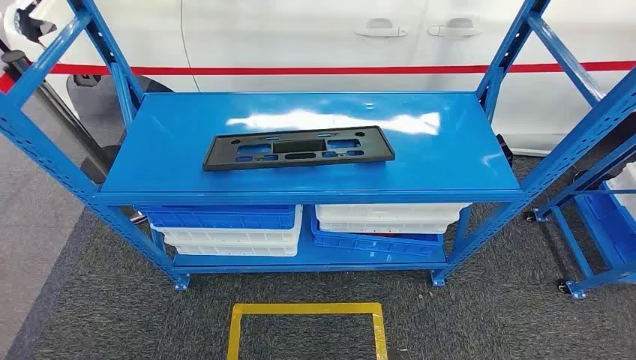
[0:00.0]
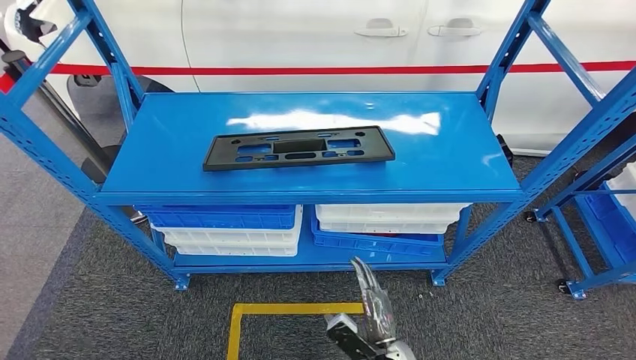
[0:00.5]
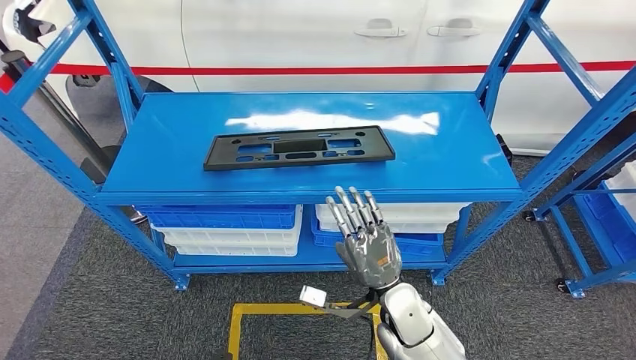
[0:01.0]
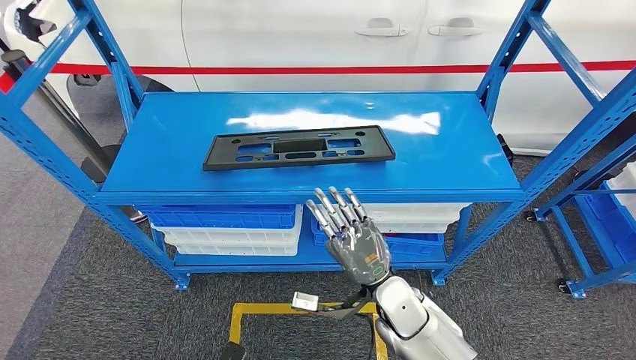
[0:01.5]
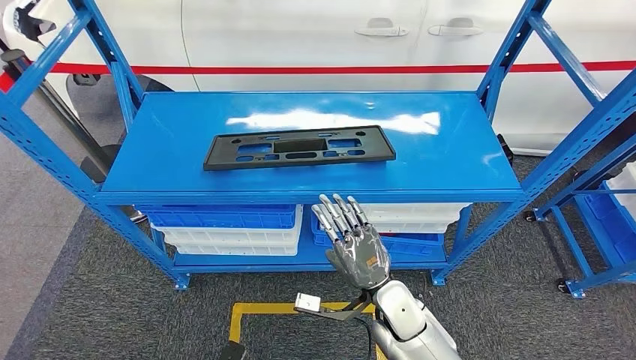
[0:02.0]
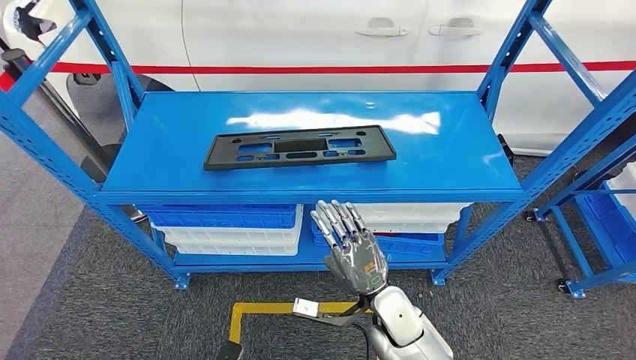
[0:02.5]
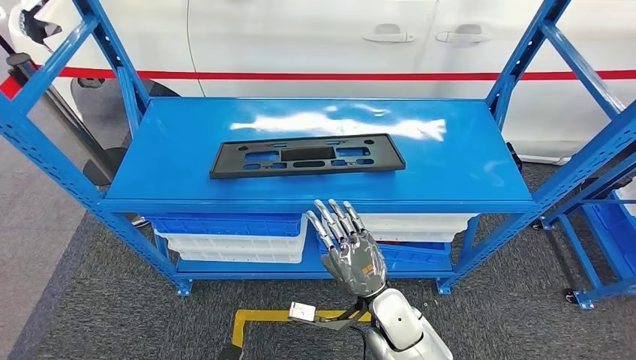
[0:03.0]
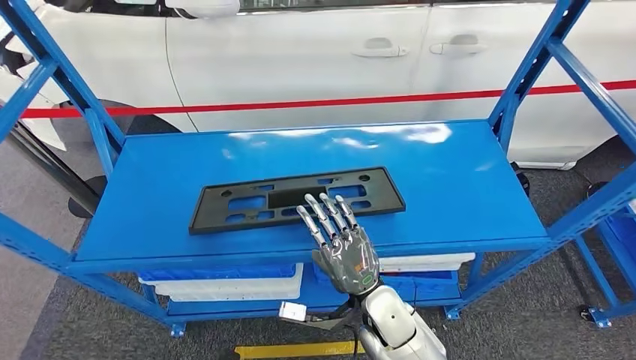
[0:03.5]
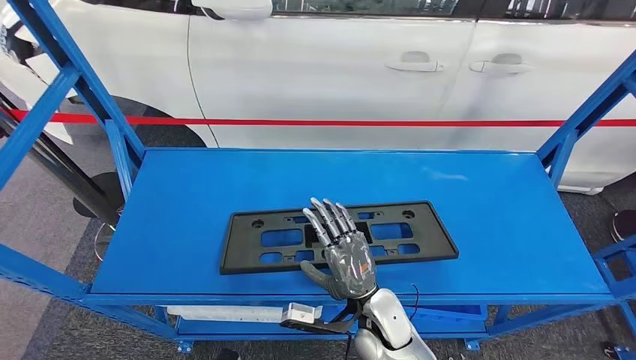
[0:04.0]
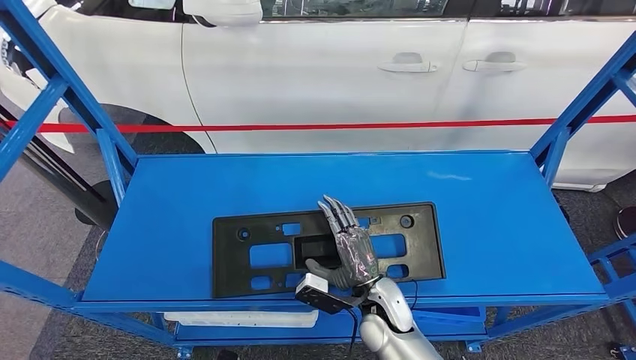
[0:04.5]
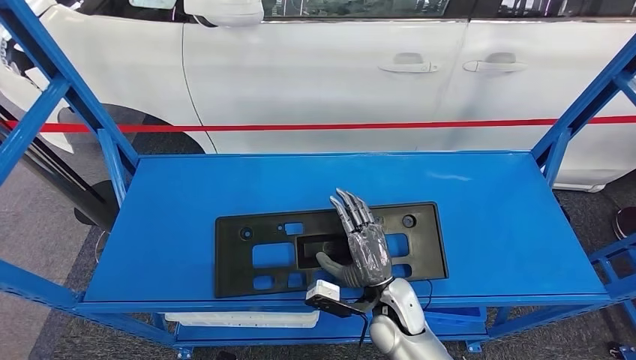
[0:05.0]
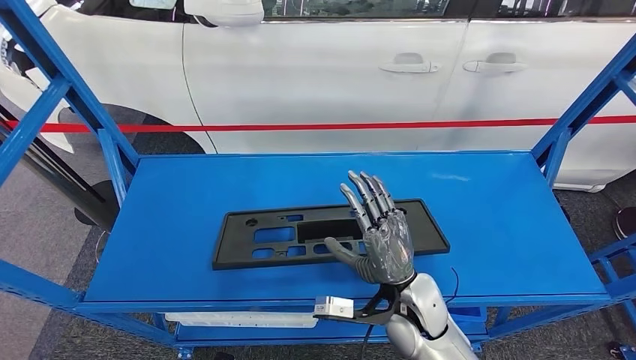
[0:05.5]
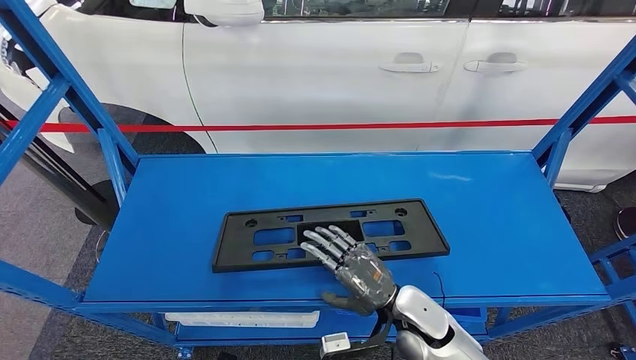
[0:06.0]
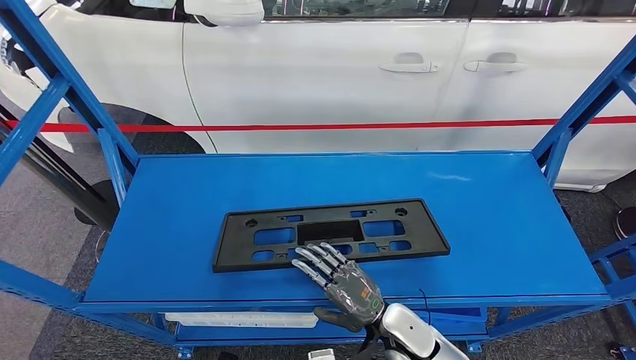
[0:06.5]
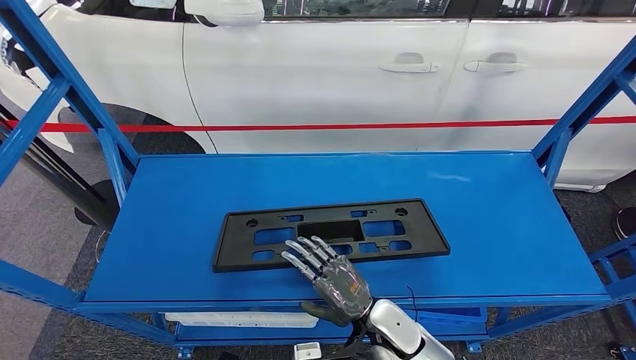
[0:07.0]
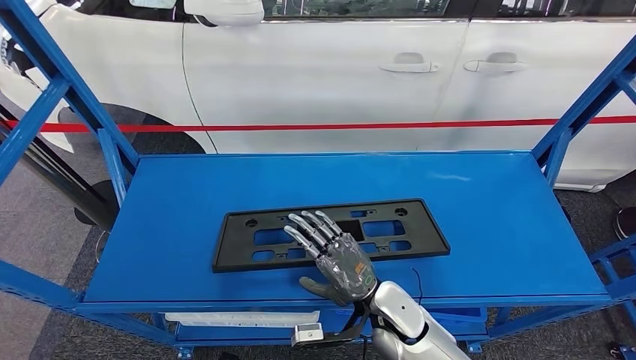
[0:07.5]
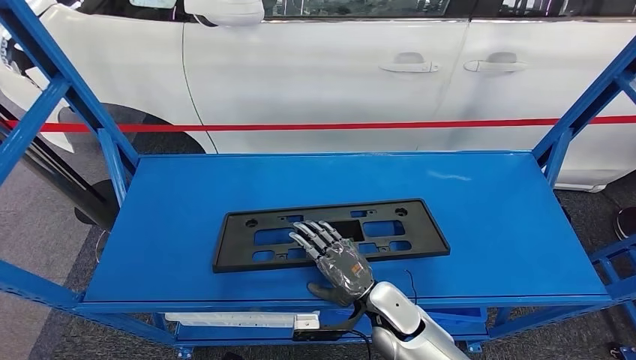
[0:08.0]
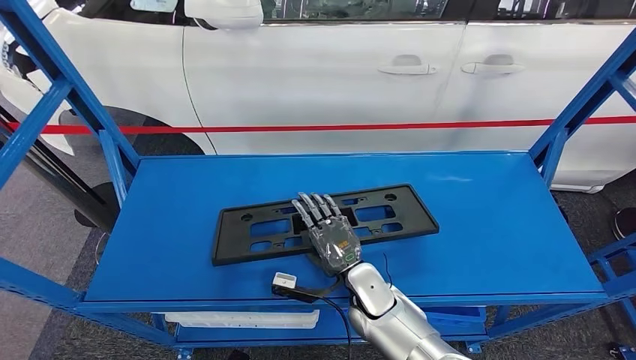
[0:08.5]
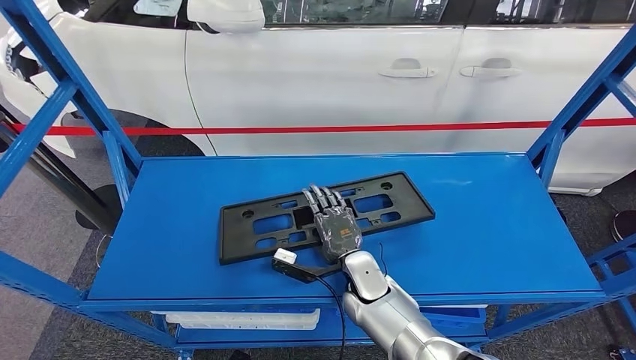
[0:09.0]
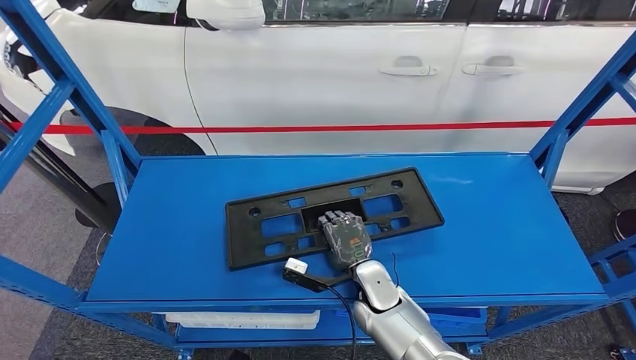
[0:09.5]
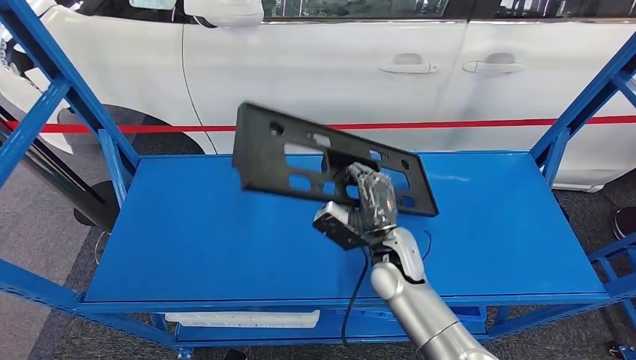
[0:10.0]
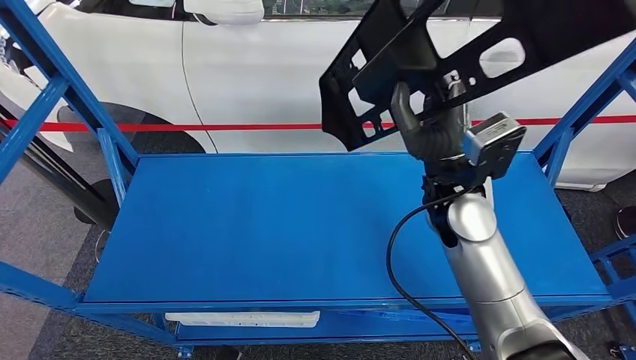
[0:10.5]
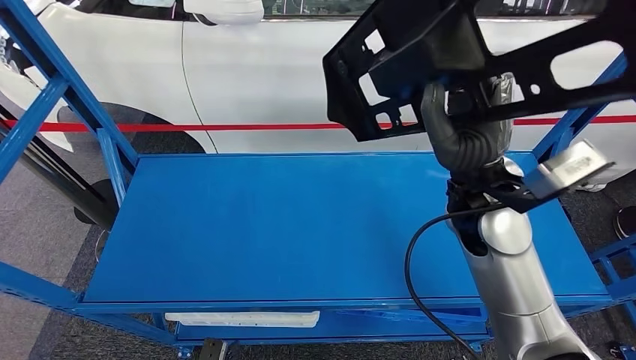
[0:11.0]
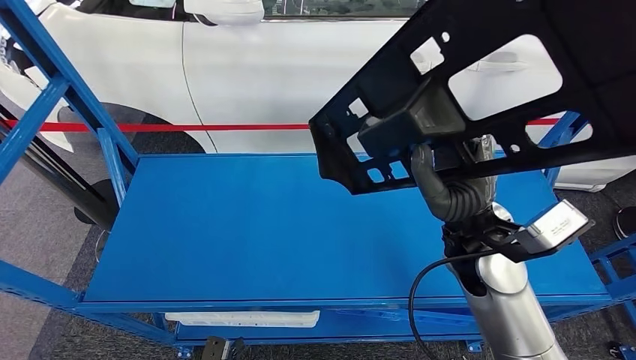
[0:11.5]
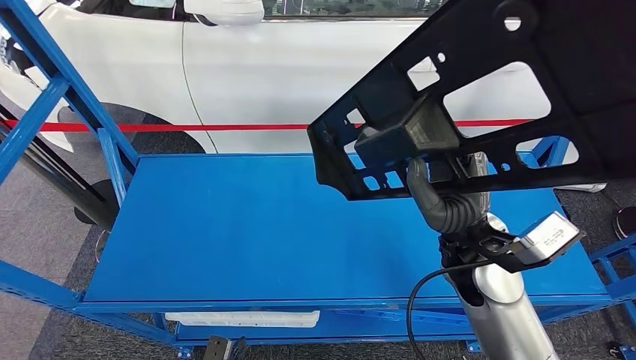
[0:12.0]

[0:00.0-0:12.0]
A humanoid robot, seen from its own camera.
0:06.0 to 0:08.0: There are only small adjustments of the hands.
0:08.0 to 0:10.0: The right hand goes about 10 cm forward and upward.

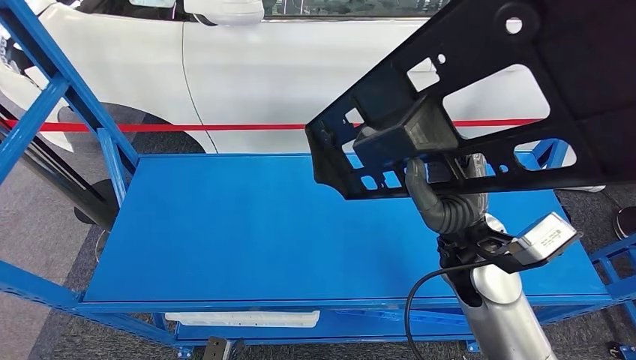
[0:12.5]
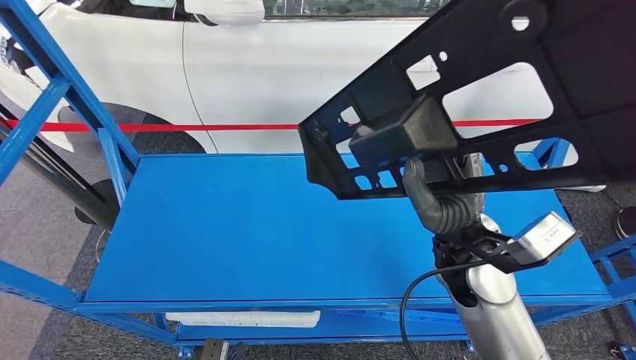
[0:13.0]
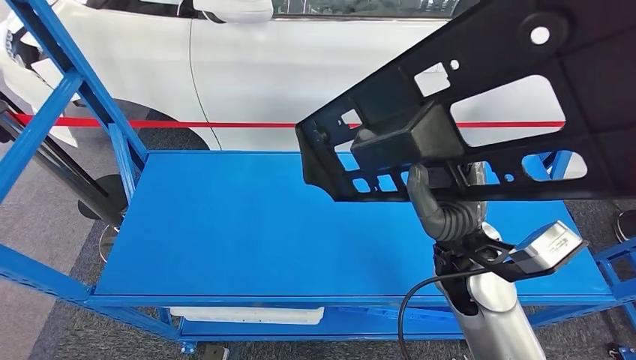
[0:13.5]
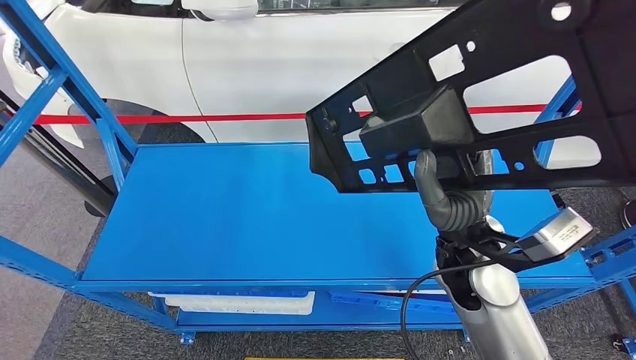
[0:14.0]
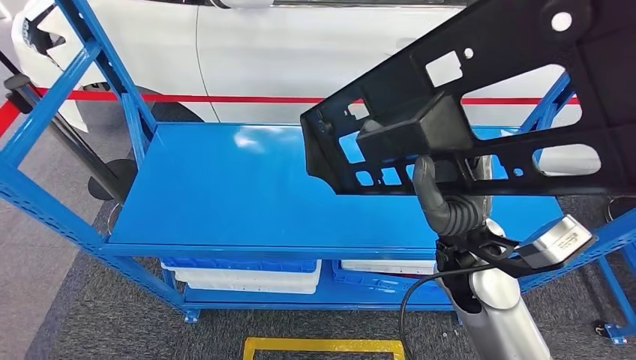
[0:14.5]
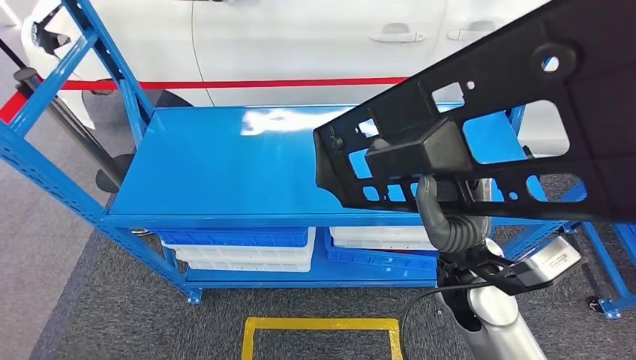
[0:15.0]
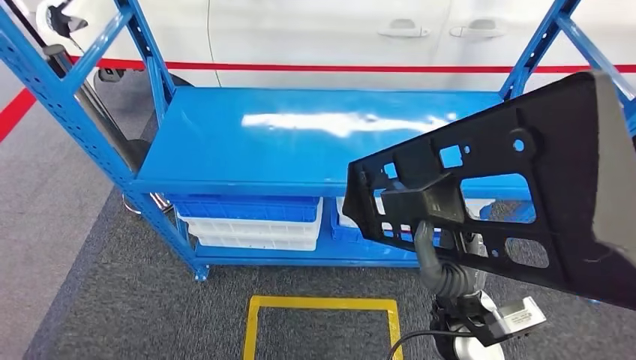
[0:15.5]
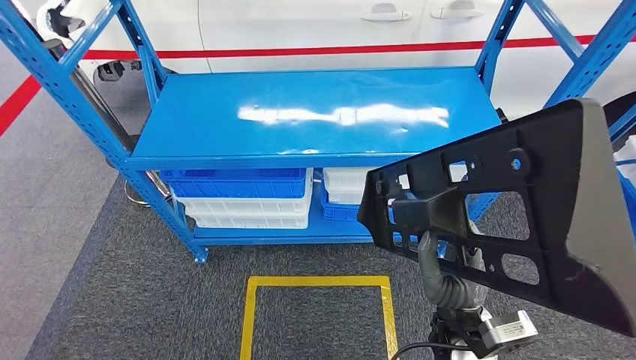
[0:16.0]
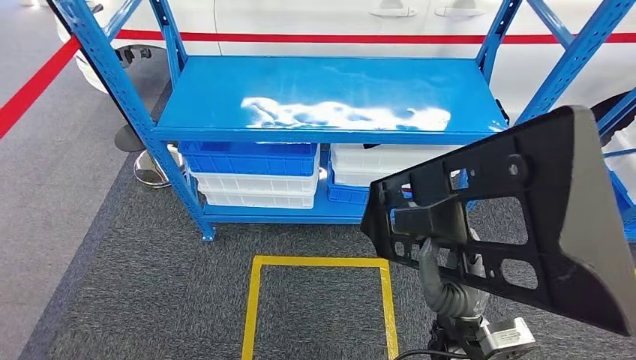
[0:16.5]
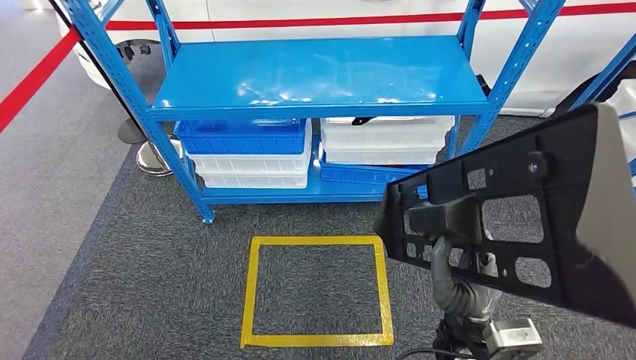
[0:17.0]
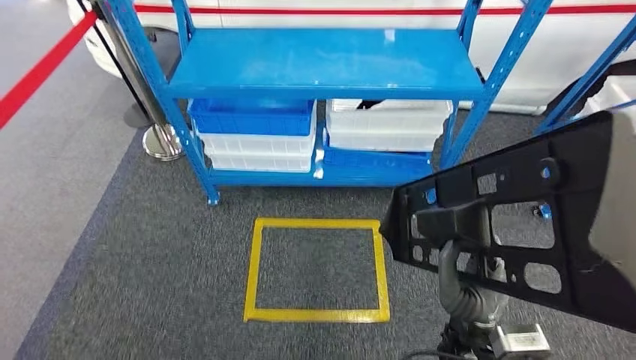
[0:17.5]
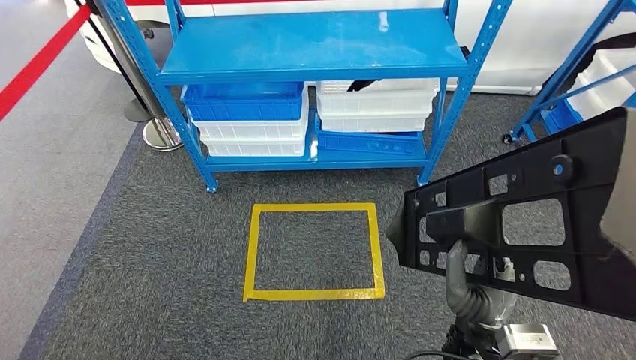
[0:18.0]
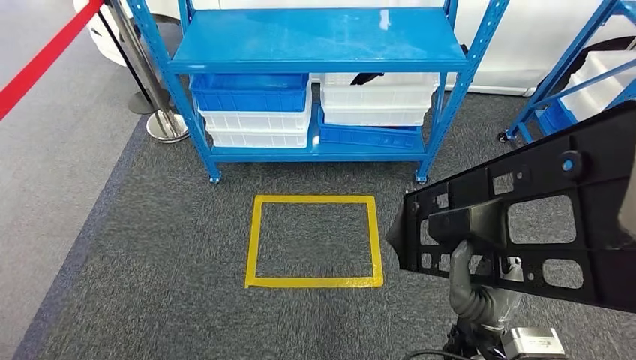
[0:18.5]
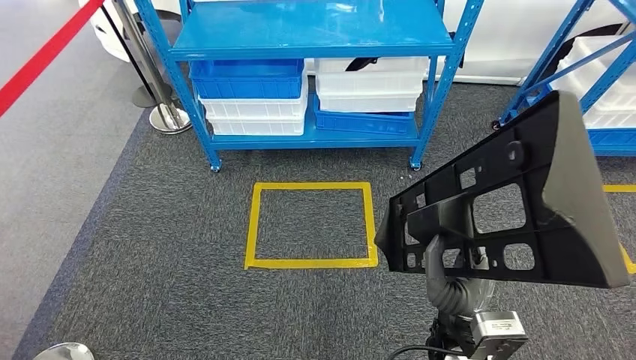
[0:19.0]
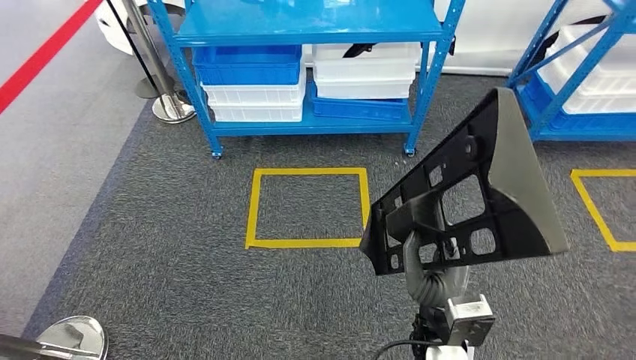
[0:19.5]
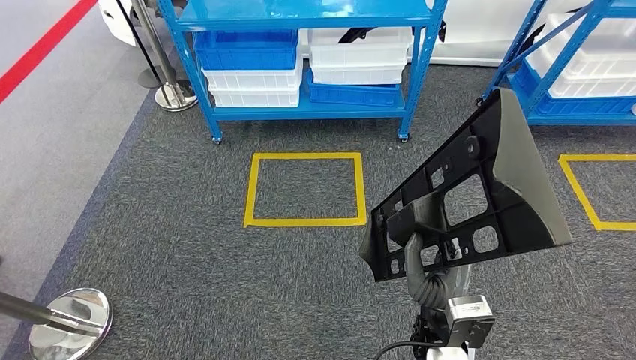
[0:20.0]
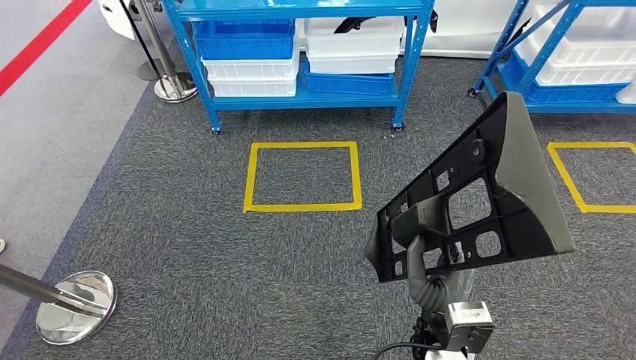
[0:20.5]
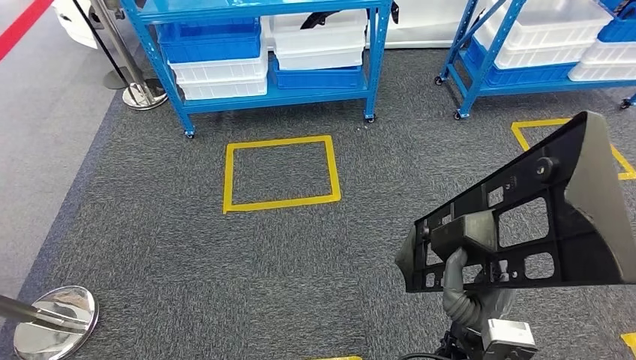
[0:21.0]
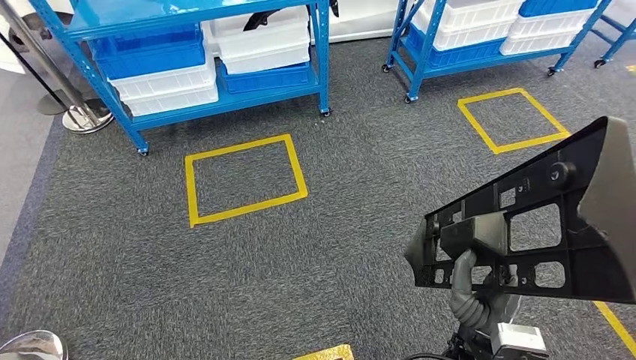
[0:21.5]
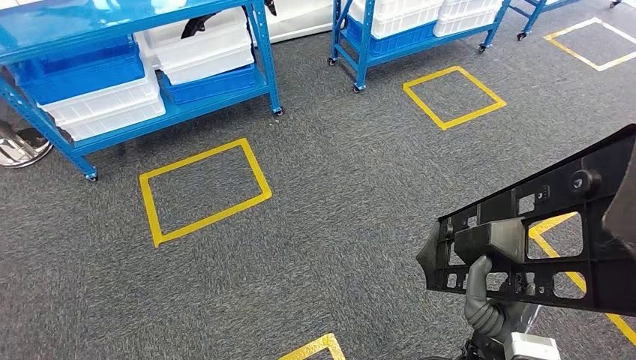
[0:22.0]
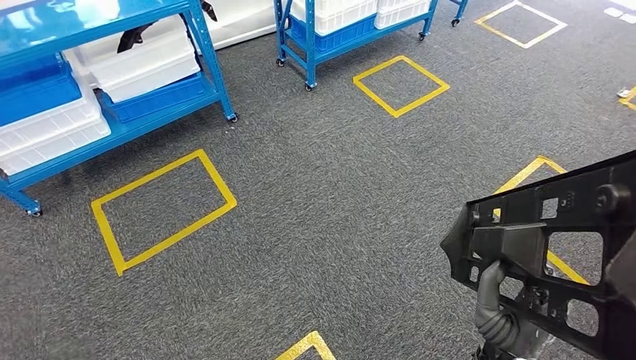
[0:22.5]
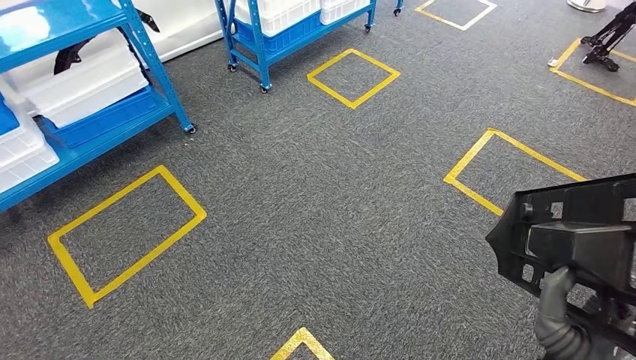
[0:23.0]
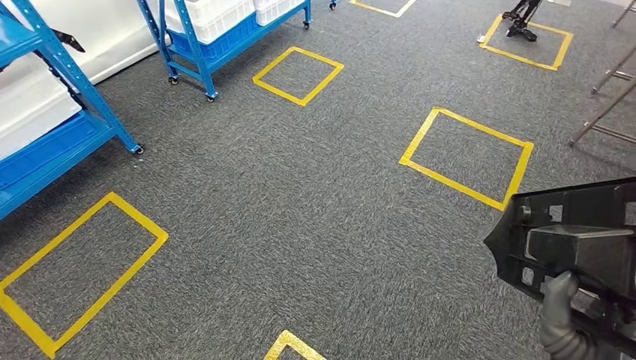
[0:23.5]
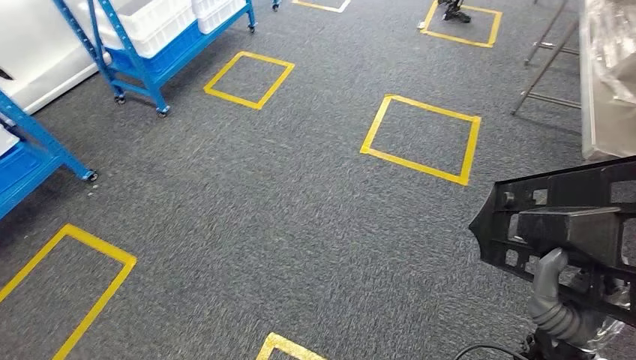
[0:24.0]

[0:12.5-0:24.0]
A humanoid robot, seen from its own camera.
Step, 0:12.5 to 0:15.5: Pick up the large material from the shelf.
